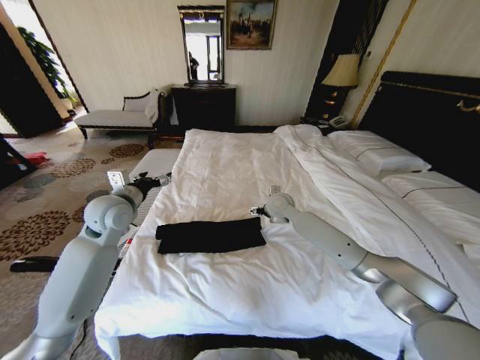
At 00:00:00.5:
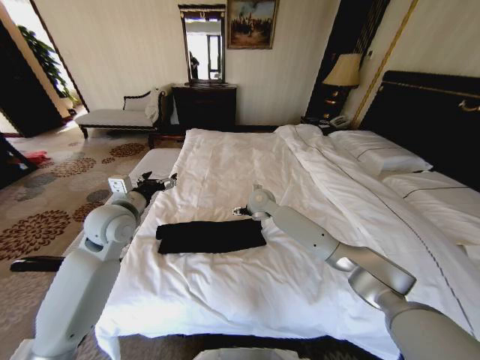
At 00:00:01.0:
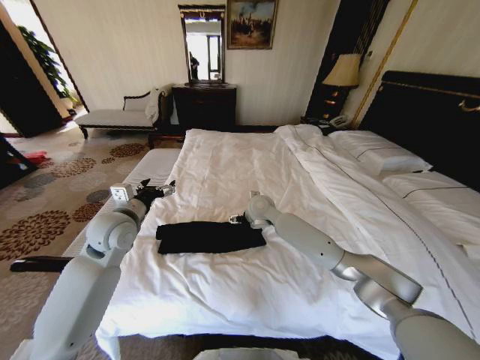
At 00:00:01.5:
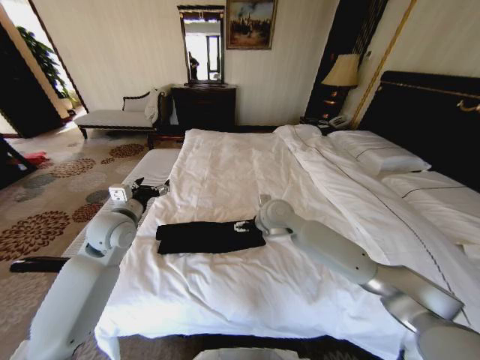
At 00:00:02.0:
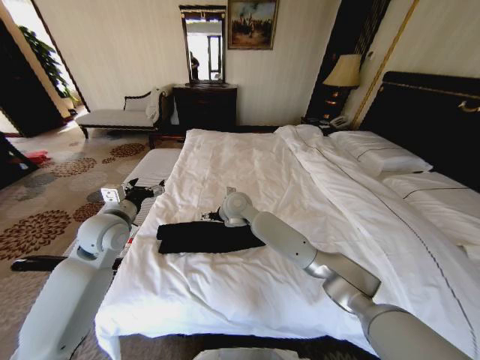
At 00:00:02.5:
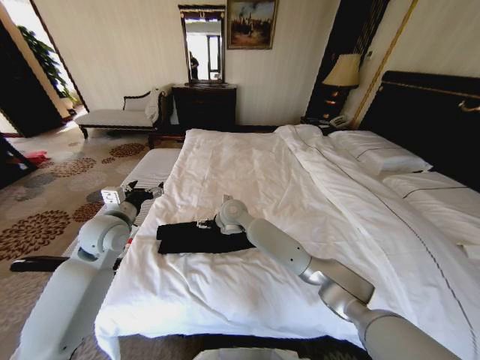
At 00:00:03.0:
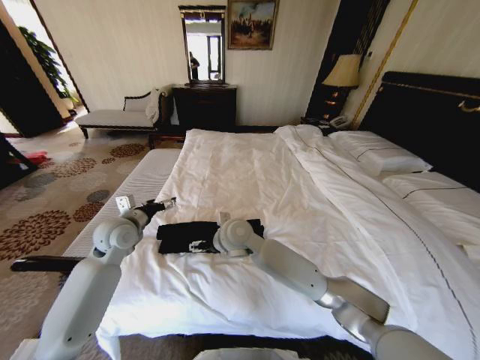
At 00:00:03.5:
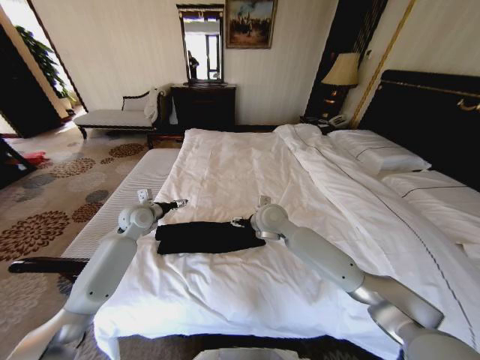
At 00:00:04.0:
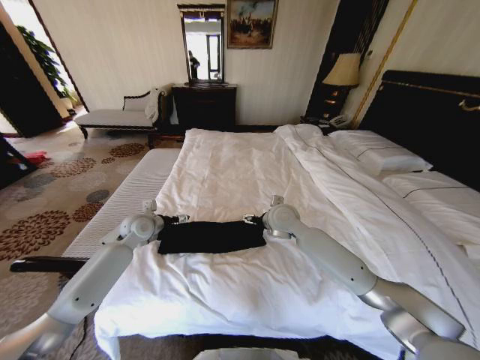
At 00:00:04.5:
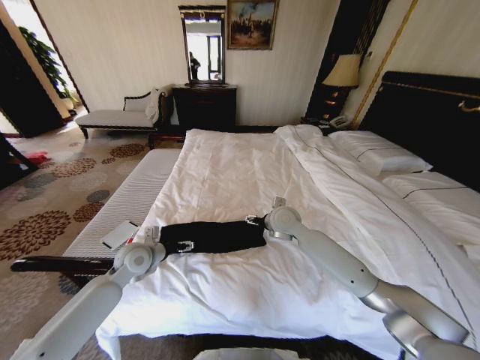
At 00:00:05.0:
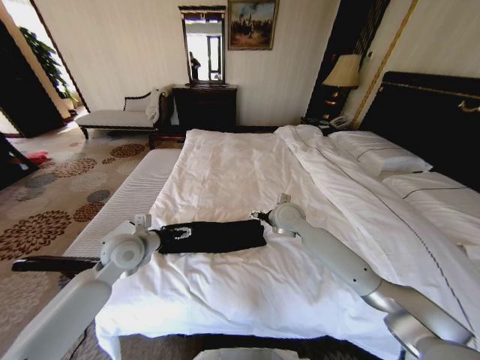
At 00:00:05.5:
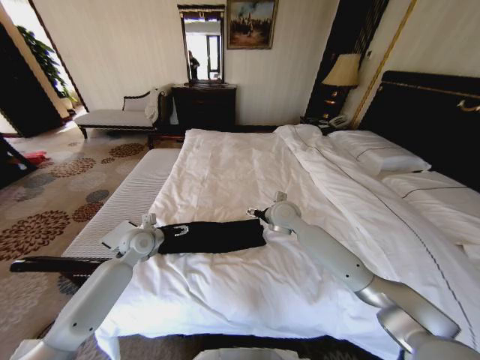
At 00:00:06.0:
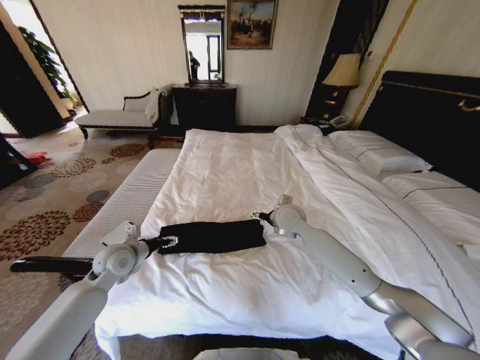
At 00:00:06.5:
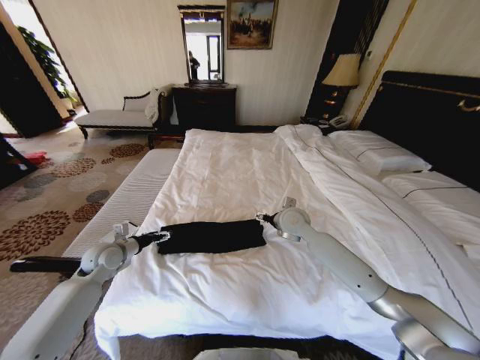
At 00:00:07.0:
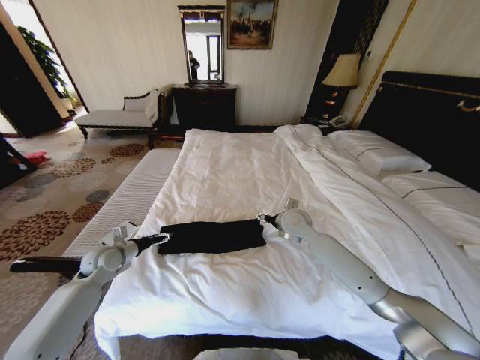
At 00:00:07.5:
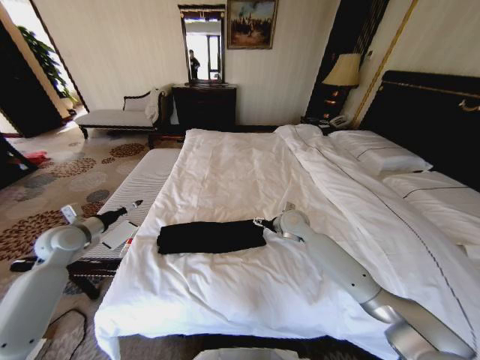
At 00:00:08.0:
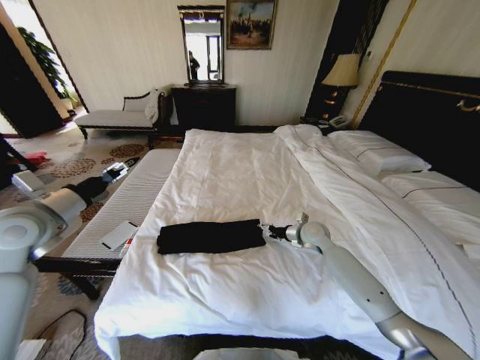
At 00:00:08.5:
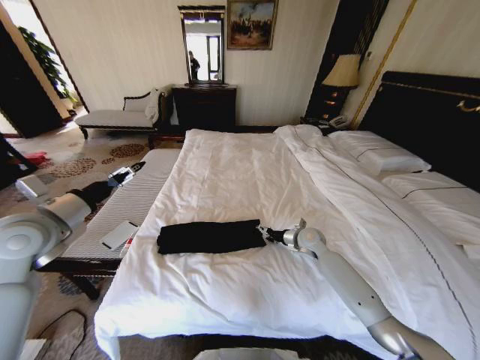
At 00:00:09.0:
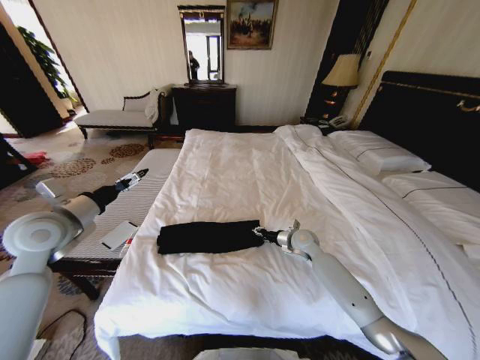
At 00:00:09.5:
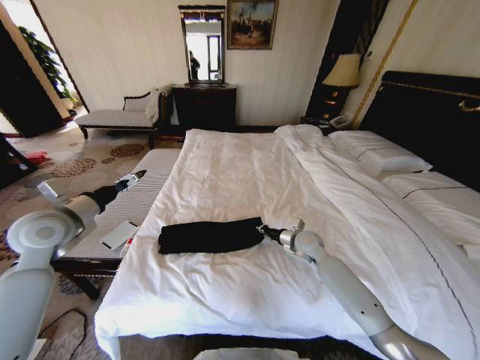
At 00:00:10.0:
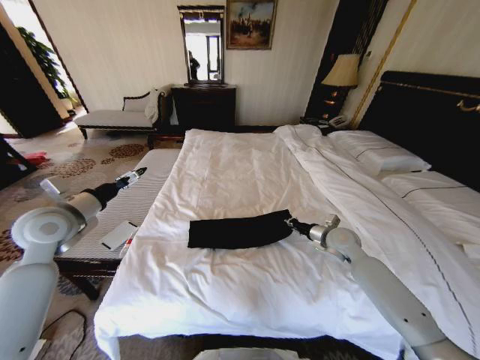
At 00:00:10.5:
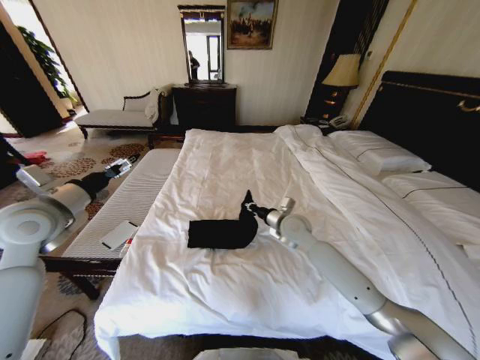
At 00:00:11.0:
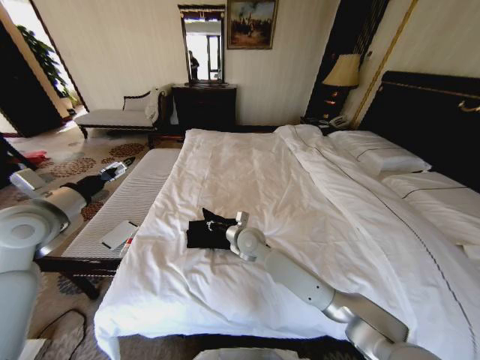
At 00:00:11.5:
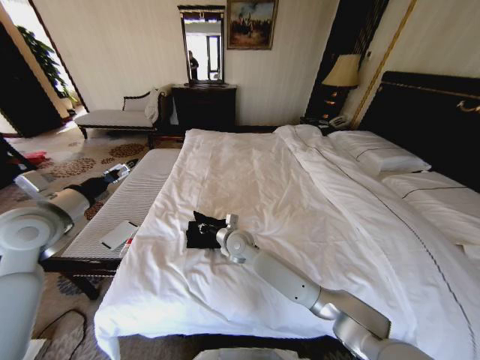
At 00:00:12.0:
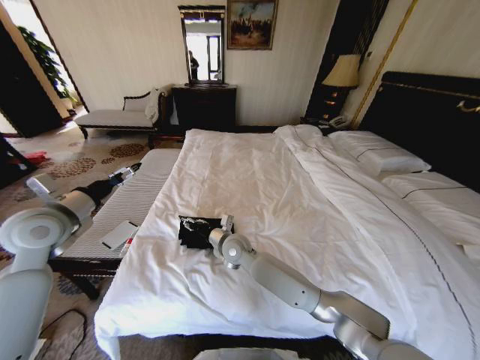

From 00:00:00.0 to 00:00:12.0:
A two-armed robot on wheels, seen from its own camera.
Task of the whole recording: Fold the clothes on the bed.
From 00:00:00.0 to 00:00:02.0: The right gripper shifts some 15 cm to the left.
From 00:00:02.0 to 00:00:04.0: The left gripper is displaced downward and forward by about 15 cm; the right gripper travels to the right by approximately 15 cm.
From 00:00:04.0 to 00:00:06.0: The left gripper swings forward and backward, some 10 cm each way, with 2 reversals.
From 00:00:06.0 to 00:00:08.0: The right gripper shifts about 15 cm to the right and downward. Meanwhile the left gripper goes approximately 20 cm upward and to the left.
From 00:00:08.0 to 00:00:10.0: The right gripper heads to the right, covering roughly 5 cm, and closes its fingers.
From 00:00:10.0 to 00:00:12.0: The right gripper travels to the left by some 35 cm.

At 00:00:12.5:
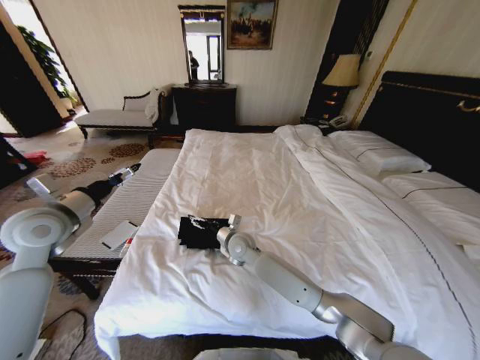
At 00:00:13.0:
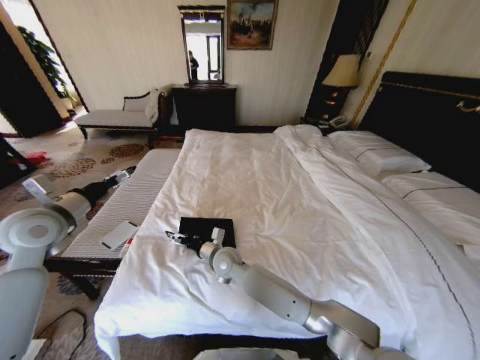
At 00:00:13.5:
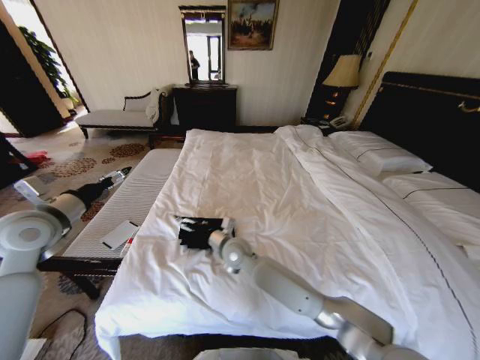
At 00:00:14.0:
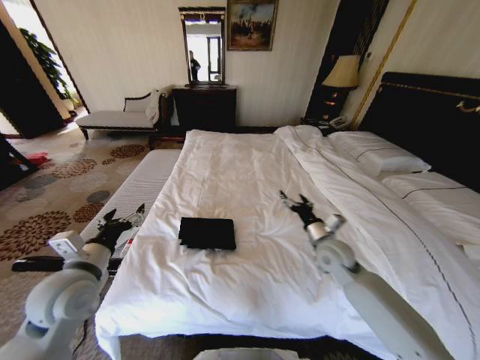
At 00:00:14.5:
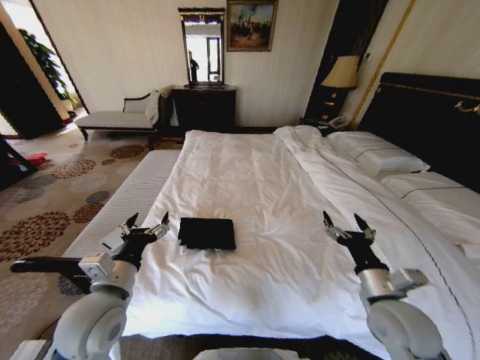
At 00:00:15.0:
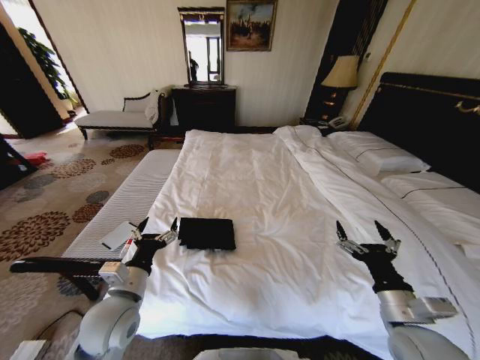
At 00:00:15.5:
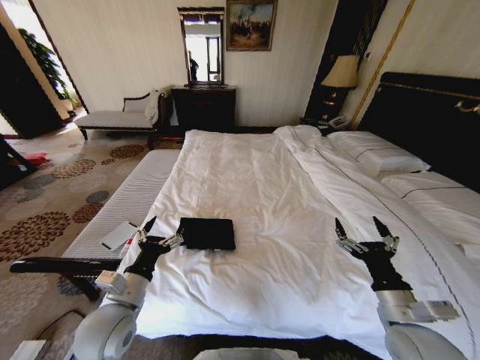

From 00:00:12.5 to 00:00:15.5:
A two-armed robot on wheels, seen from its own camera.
Task of the whole recording: Fold the clothes on the bed.
From 00:00:12.5 to 00:00:14.0: The right gripper is displaced to the right by roughly 25 cm. Meanwhile the left gripper shifts approximately 15 cm backward, downward and to the right.
From 00:00:14.0 to 00:00:15.5: The left gripper is displaced to the right and downward by approximately 10 cm. Meanwhile the right gripper goes approximately 20 cm backward.
